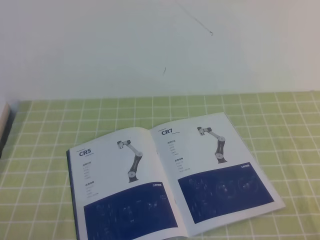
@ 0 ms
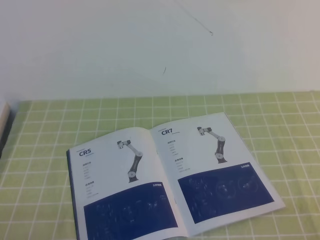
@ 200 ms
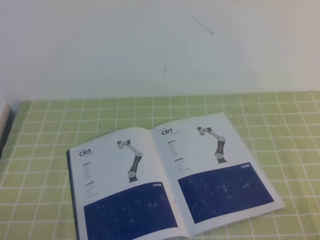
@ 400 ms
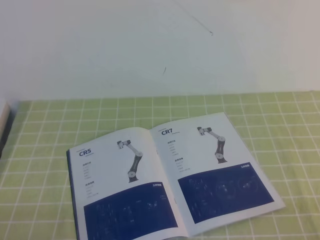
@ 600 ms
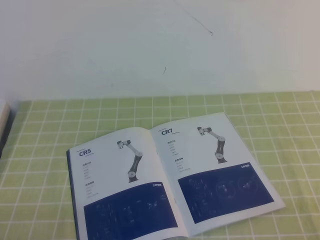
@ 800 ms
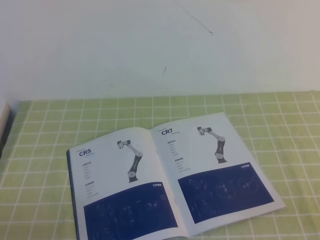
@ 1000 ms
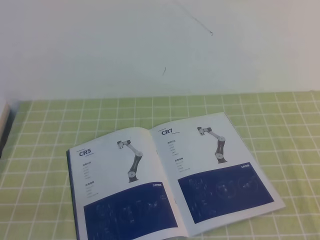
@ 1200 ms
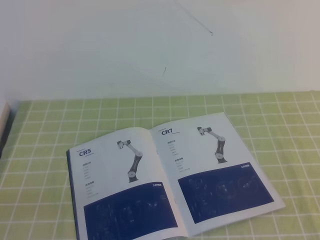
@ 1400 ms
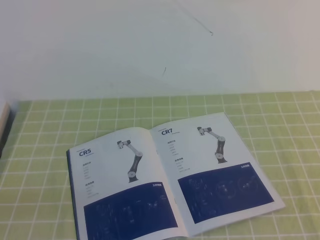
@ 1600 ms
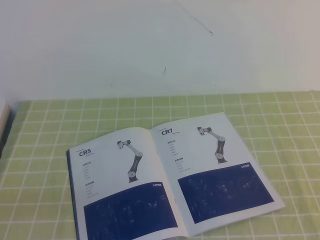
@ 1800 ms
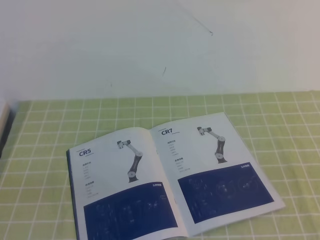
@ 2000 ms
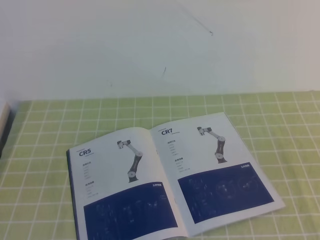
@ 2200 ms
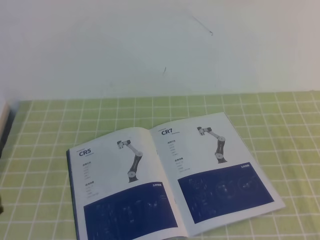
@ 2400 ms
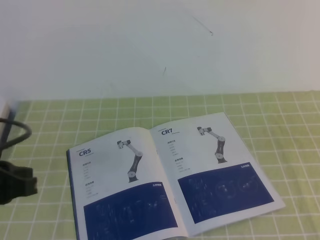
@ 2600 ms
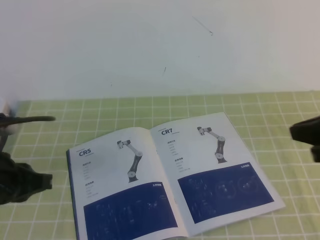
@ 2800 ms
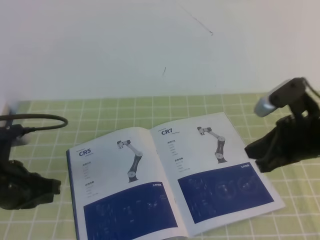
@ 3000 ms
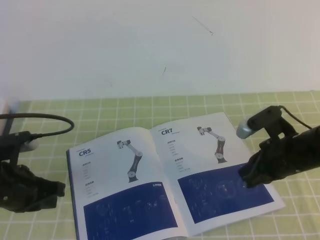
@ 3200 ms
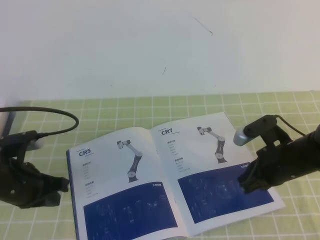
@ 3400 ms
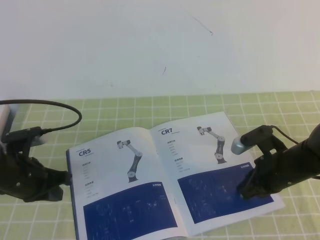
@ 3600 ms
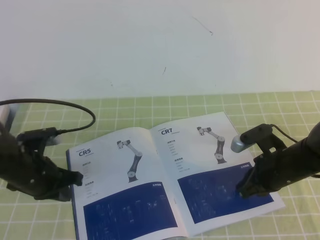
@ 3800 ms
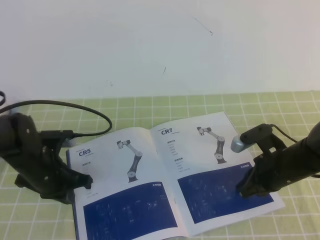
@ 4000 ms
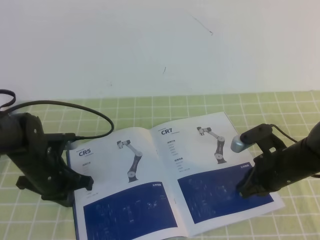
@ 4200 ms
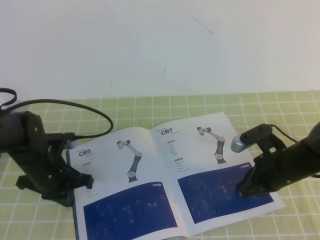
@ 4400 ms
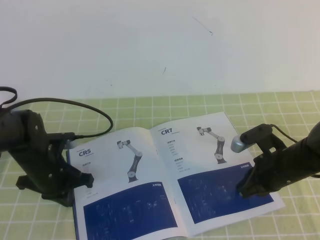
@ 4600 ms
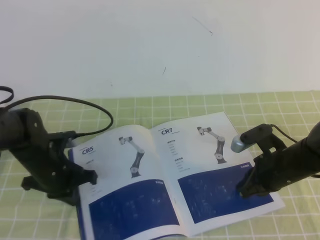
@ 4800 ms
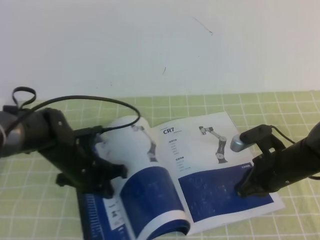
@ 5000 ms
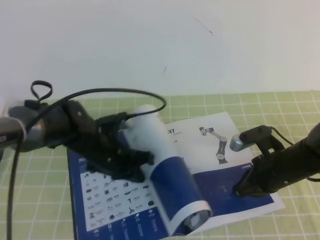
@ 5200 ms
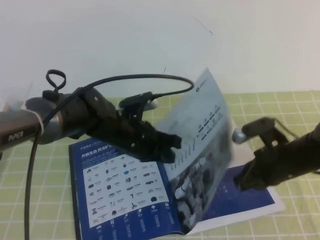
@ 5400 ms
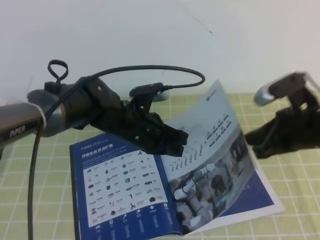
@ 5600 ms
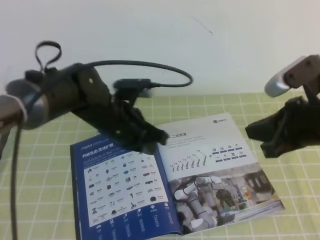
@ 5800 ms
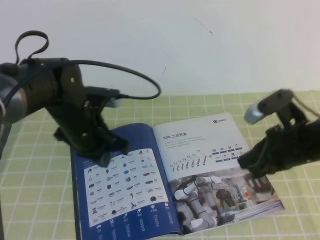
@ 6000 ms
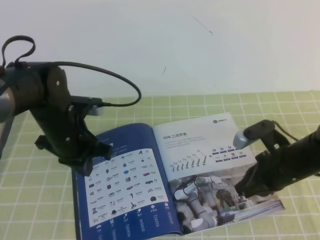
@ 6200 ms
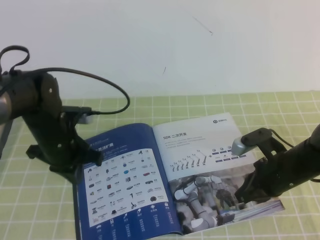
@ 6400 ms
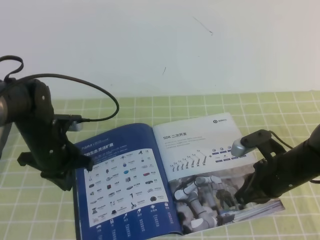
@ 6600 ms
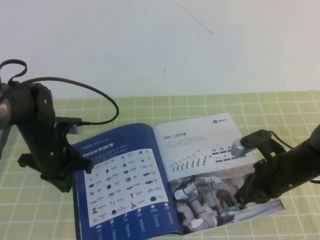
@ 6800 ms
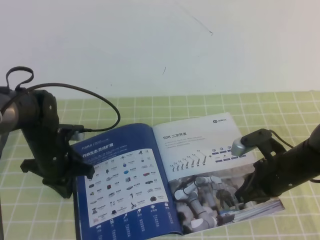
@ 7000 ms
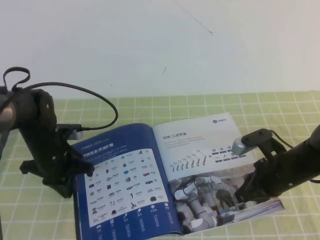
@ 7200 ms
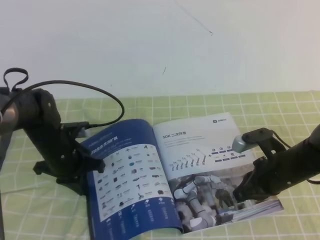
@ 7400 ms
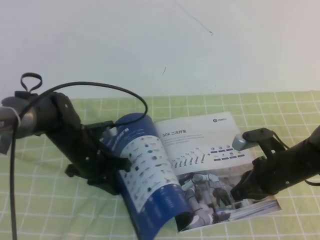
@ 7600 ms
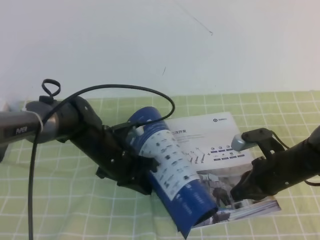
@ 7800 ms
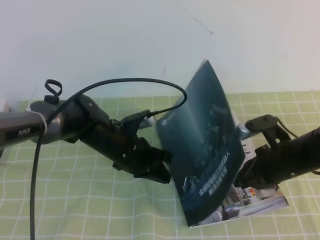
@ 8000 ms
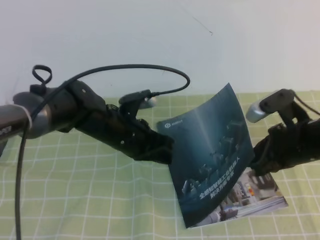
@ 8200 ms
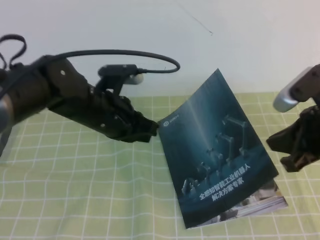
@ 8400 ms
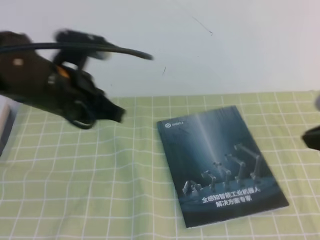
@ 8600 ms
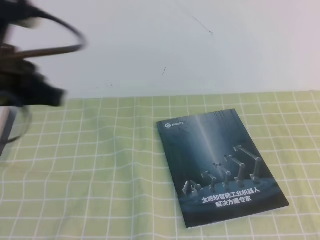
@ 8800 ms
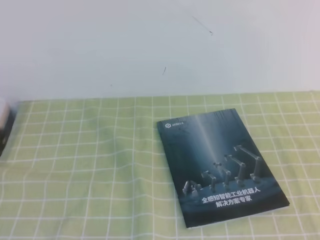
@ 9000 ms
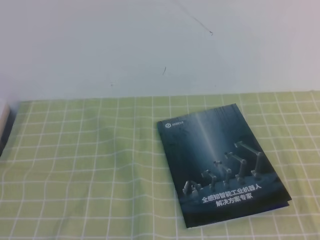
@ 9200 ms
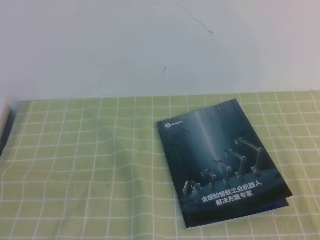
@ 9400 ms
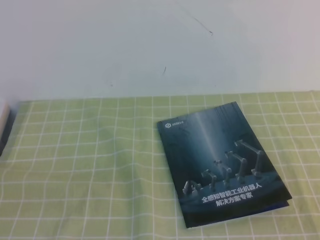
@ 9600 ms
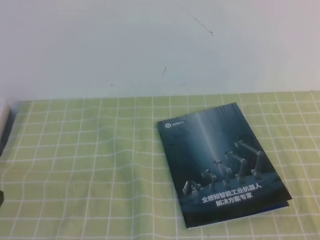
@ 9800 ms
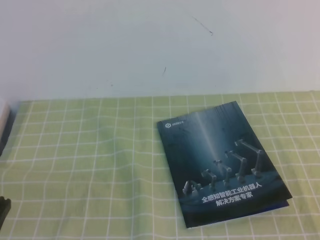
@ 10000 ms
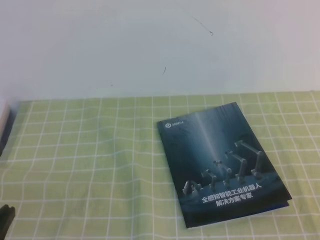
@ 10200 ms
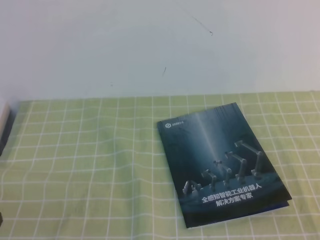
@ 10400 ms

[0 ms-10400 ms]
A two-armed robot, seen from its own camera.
Task of the whole recording: on the green tablecloth, hold the book with one hand and close it with the other.
1400 ms to 3000 ms: The right gripper is displaced forward and to the left by some 25 cm. Meanwhile the left gripper travels forward by about 20 cm.
3000 ms to 4400 ms: The left gripper moves forward and downward, about 15 cm. The right gripper heads downward, covering some 15 cm.
4400 ms to 6000 ms: The right gripper shifts some 10 cm upward, while the left gripper is displaced to the right and upward by about 15 cm.
6000 ms to 7400 ms: The left gripper is displaced downward and to the left by approximately 10 cm. The right gripper moves downward, approximately 10 cm.
7400 ms to 9000 ms: Both grippers move upward and backward, roughly 30 cm.
9000 ms to 10400 ms: The left gripper heads downward and backward, covering some 20 cm. The right gripper is displaced downward and backward by roughly 10 cm.
